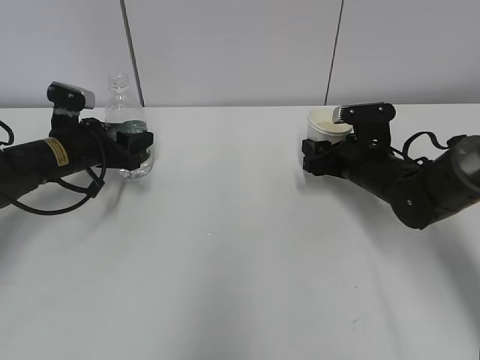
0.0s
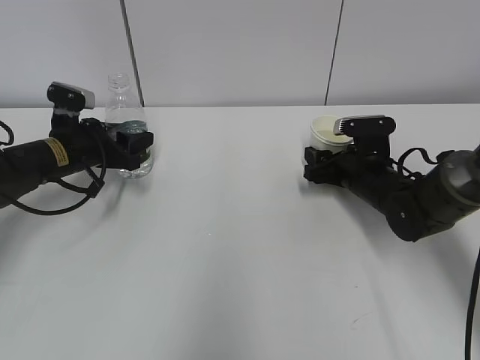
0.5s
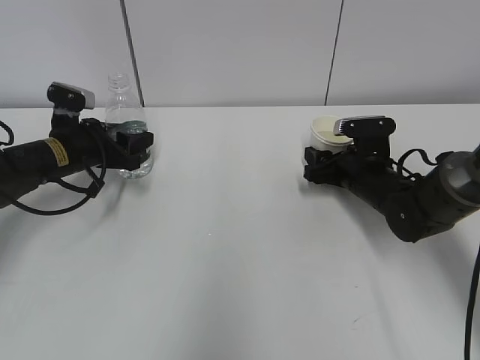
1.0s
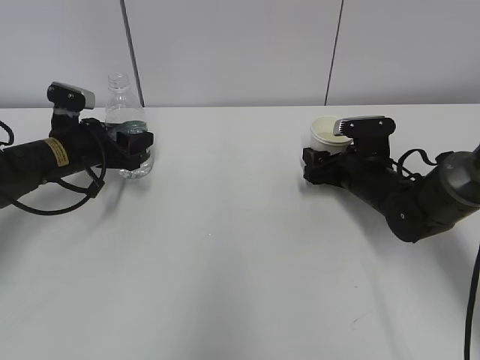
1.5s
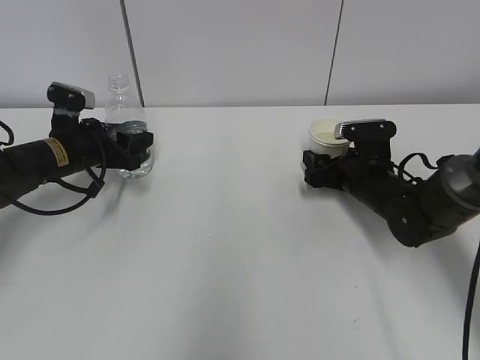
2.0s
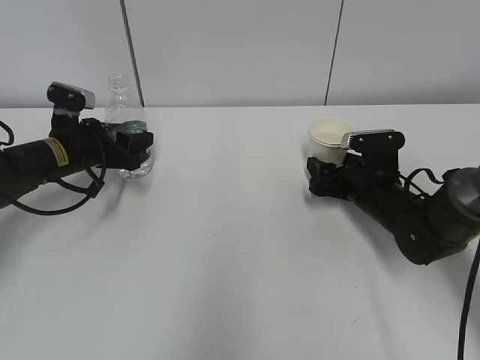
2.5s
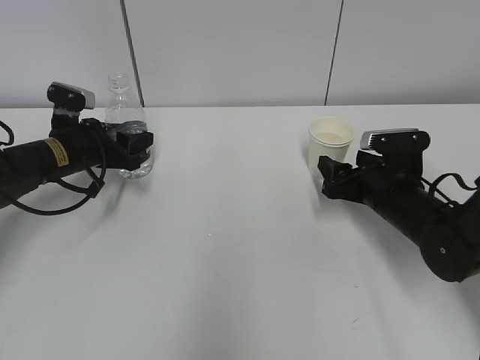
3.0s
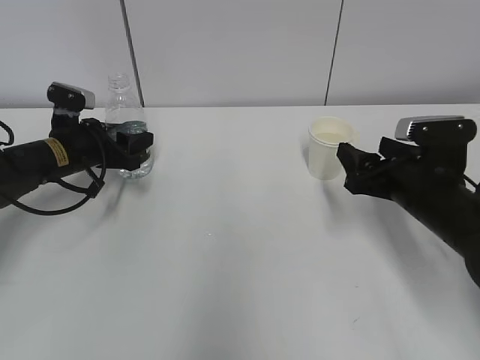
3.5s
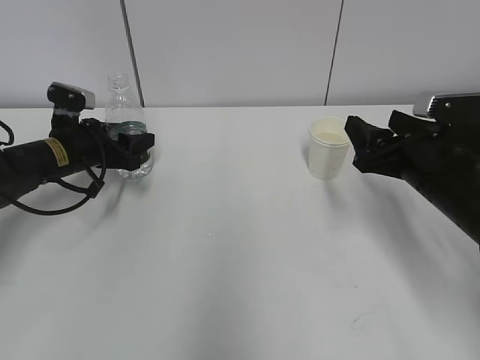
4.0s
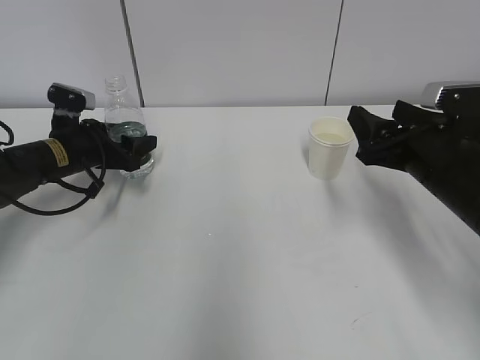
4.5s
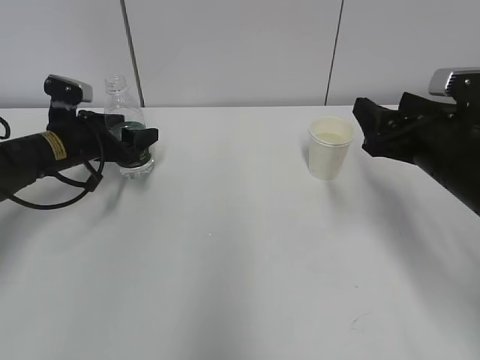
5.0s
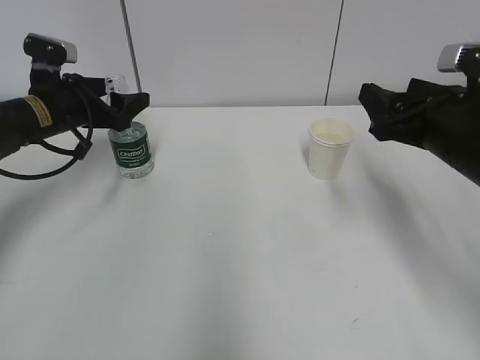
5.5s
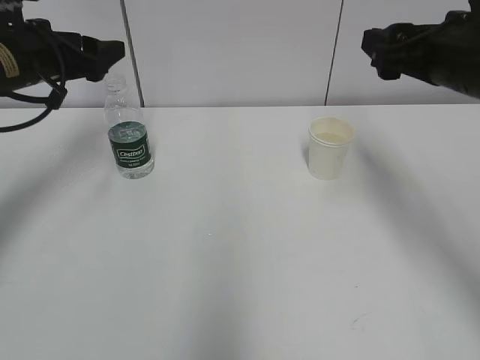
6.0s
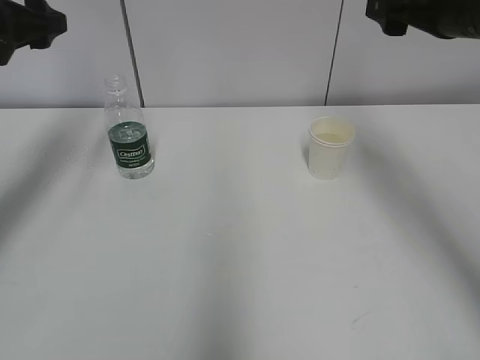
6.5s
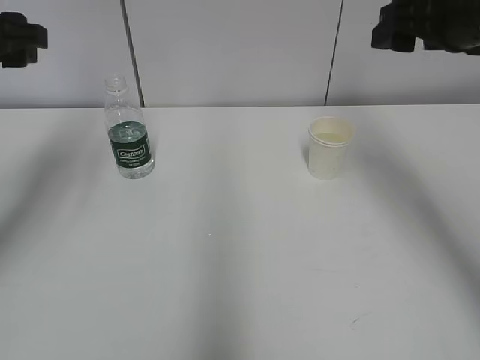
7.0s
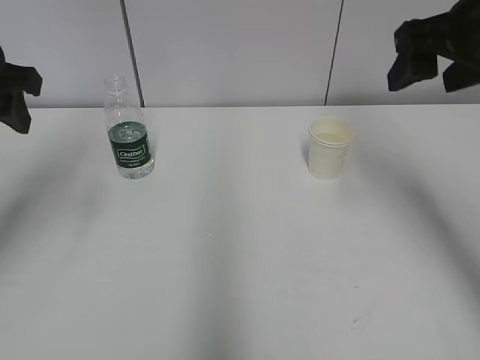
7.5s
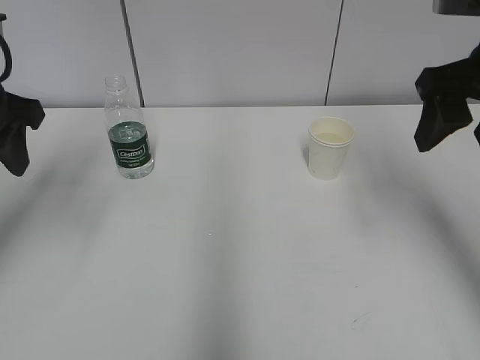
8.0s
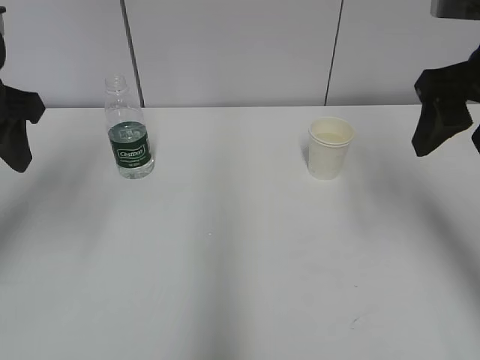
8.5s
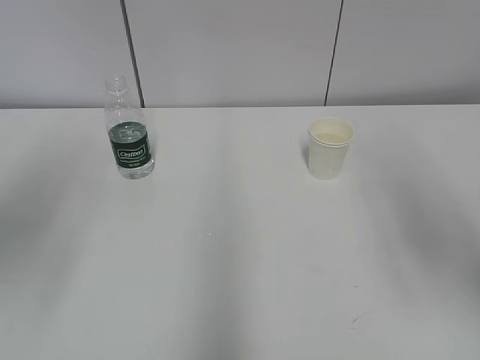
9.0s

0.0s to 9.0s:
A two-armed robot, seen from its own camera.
0.0s to 2.0s: The right gripper opens its fingers.
2.0s to 4.5s: The left gripper opens up. Meanwhile the right gripper travels upward and backward by approximately 15 cm.
4.5s to 7.0s: The left gripper heads upward and backward, covering roughly 25 cm, while the right gripper travels upward by approximately 15 cm.
7.0s to 9.0s: Both grippers move backward, some 15 cm.

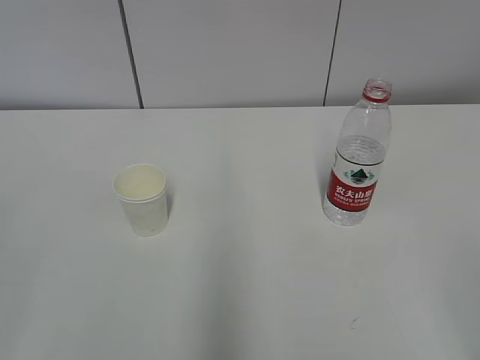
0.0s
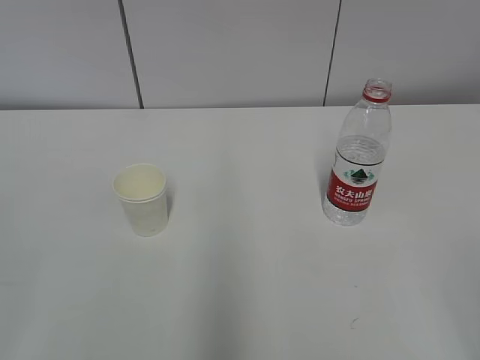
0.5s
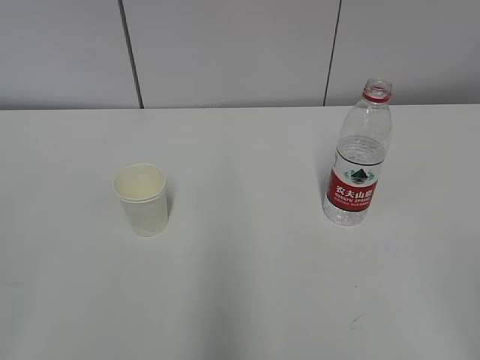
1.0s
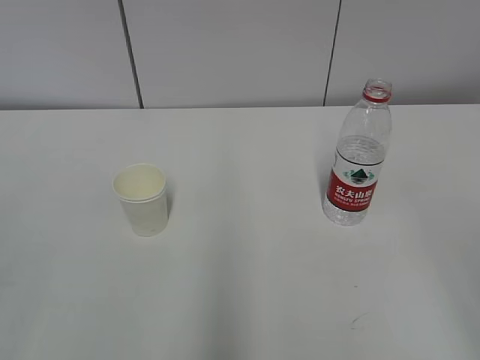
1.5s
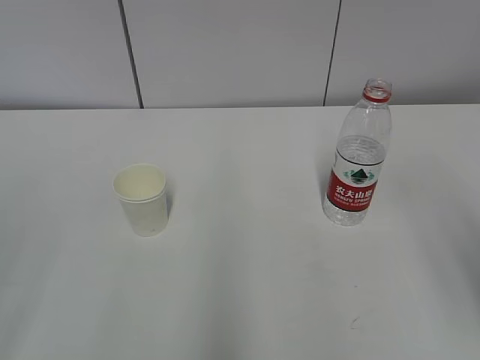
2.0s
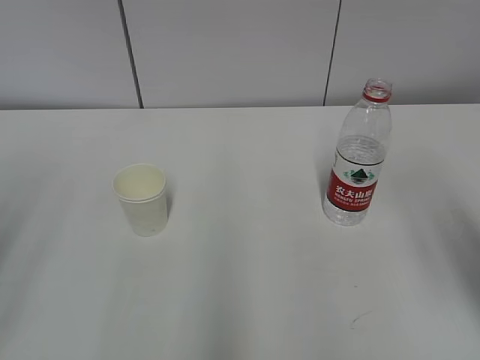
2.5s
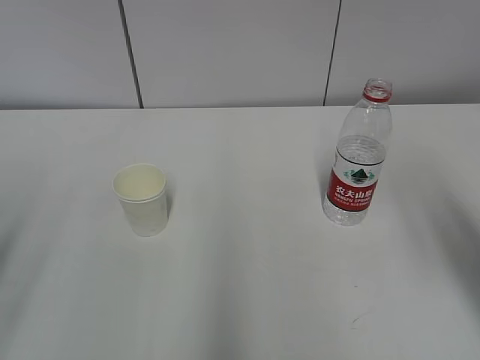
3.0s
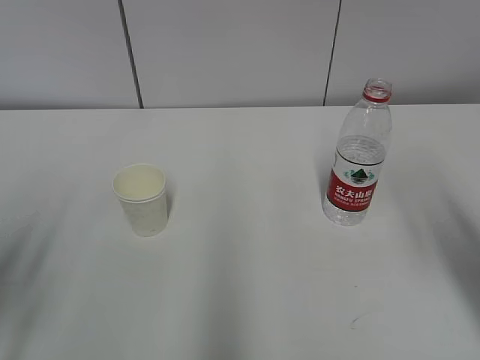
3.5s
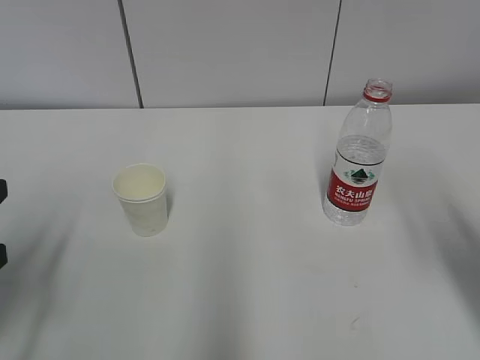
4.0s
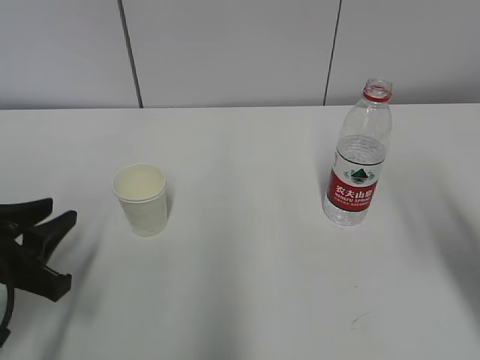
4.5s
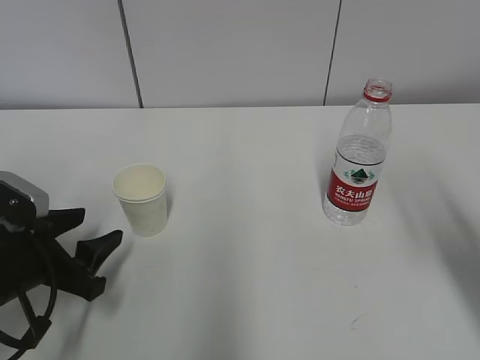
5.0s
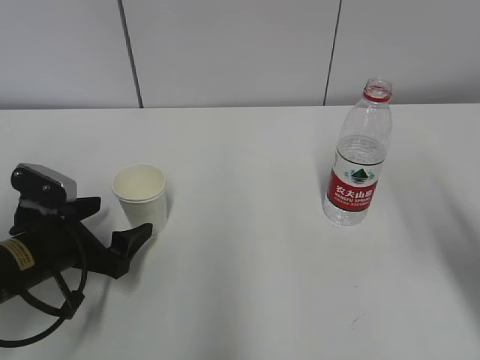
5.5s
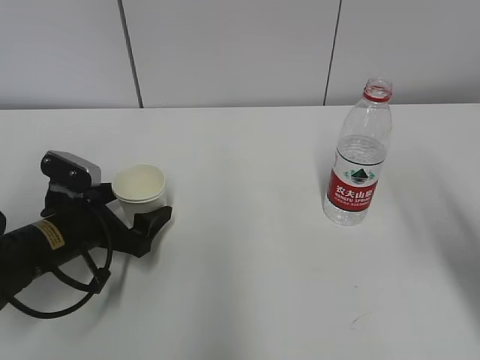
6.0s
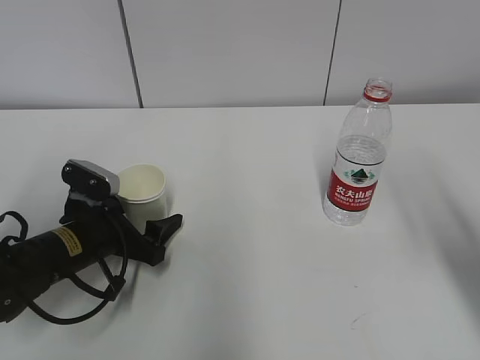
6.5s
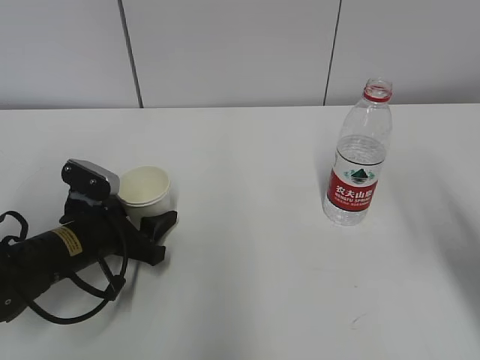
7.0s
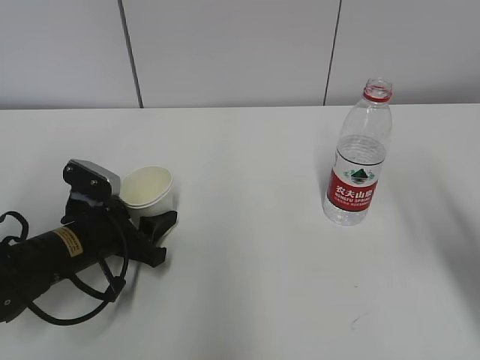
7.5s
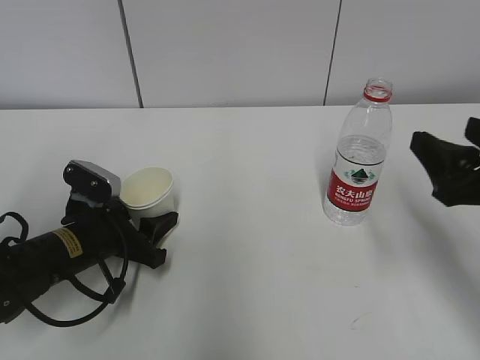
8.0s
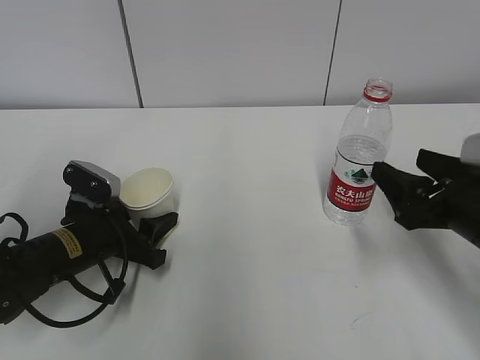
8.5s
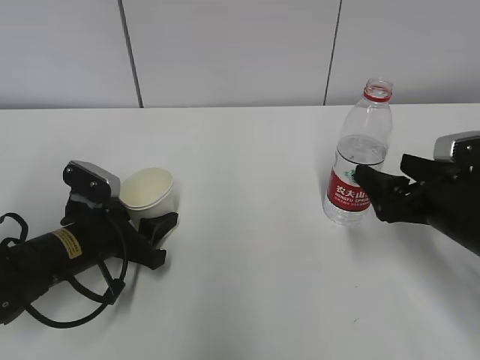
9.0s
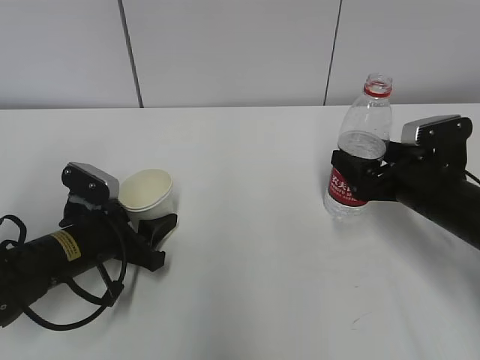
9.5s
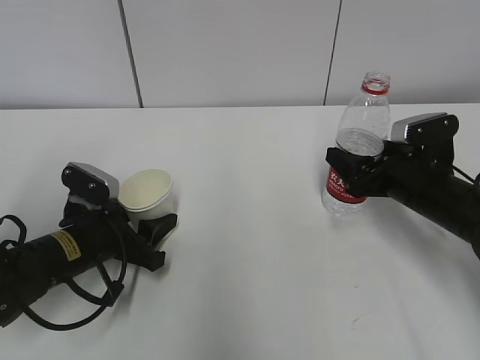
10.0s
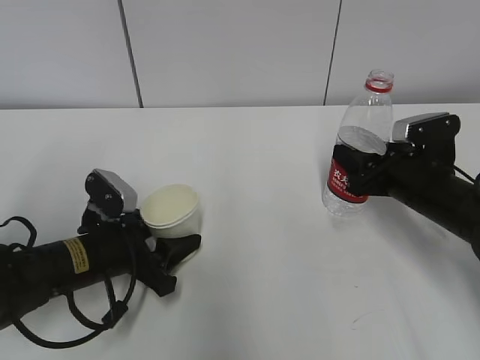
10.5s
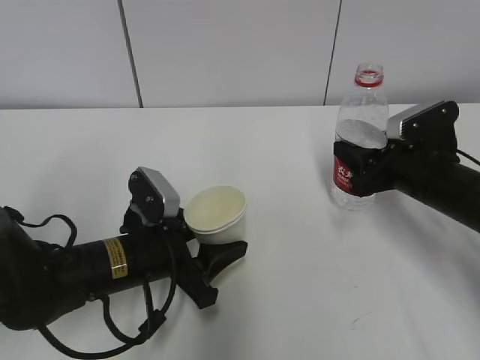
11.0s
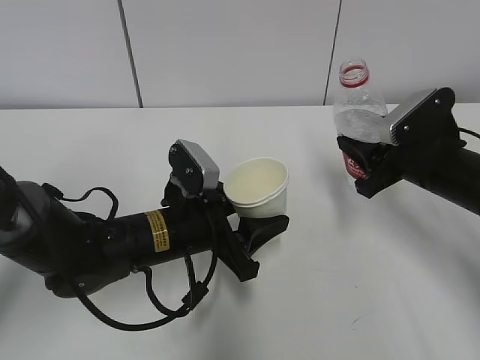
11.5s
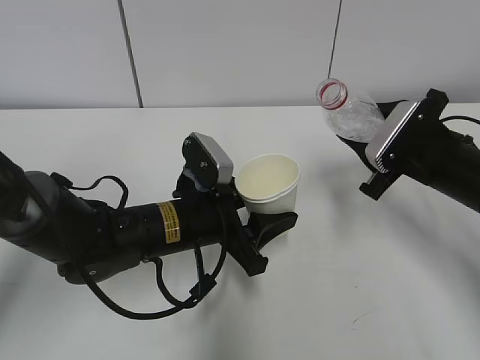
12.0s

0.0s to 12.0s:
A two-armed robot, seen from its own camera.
Step, 0.0s to 8.0s: Grab the paper cup with the left hand.
Step, 8.5s to 9.0s: Grab the water bottle with the right hand.
Step, 9.5s to 11.5s: Lift the paper cup with the left hand.
2.0s to 4.0s: The left gripper is displaced forward and downward by some 20 cm.
4.0s to 6.0s: The left gripper heads forward, downward and to the right, covering roughly 20 cm, and opens.
6.0s to 8.0s: The left gripper closes; the right gripper moves approximately 5 cm.
8.0s to 10.0s: The right gripper goes some 15 cm forward and downward.
10.0s to 12.0s: The right gripper closes its fingers, while the left gripper moves to the right, some 15 cm.

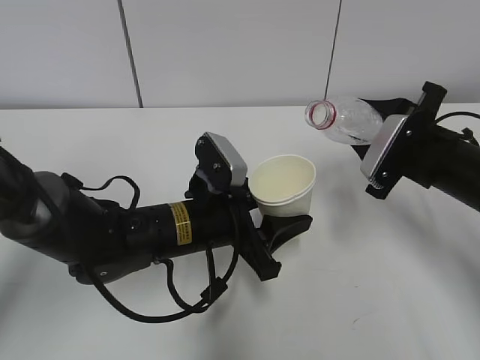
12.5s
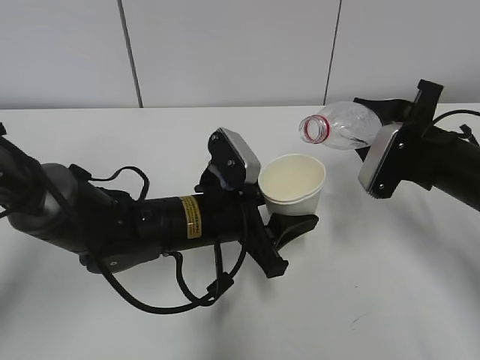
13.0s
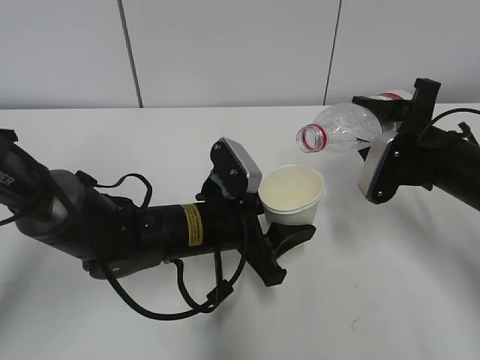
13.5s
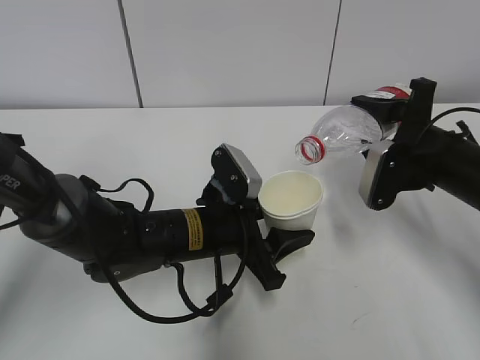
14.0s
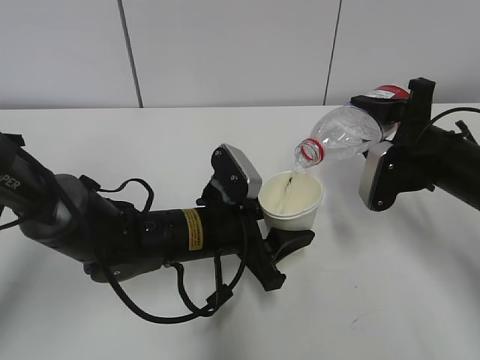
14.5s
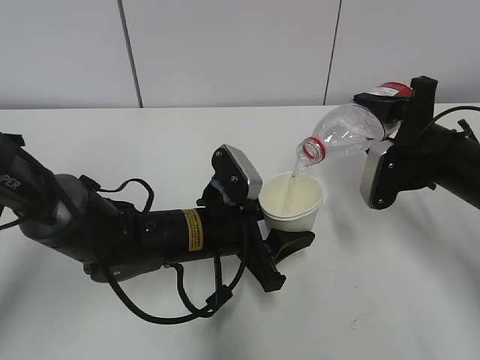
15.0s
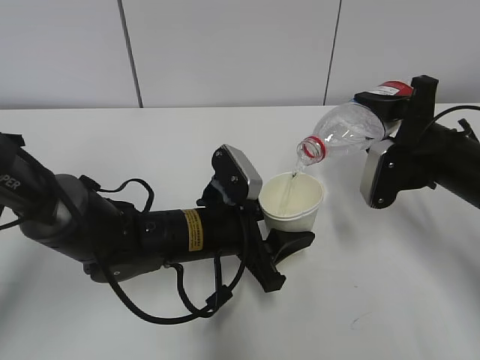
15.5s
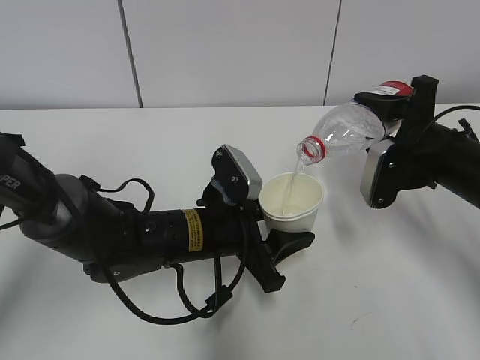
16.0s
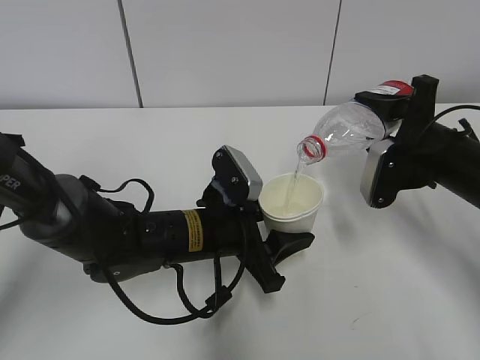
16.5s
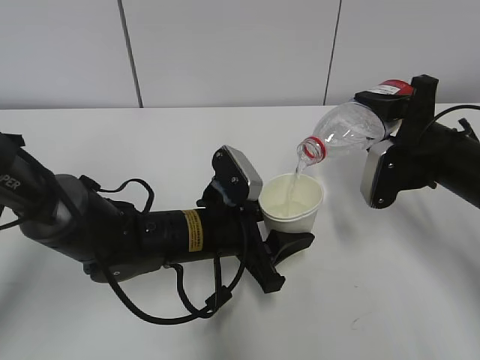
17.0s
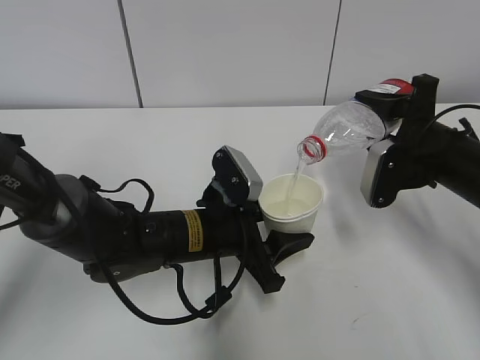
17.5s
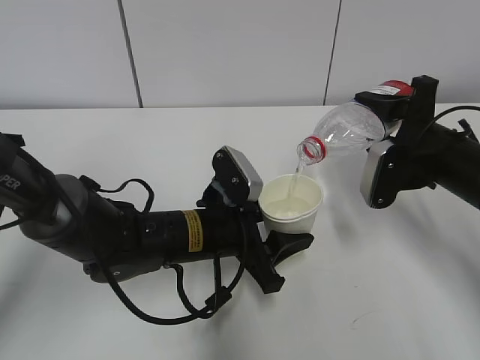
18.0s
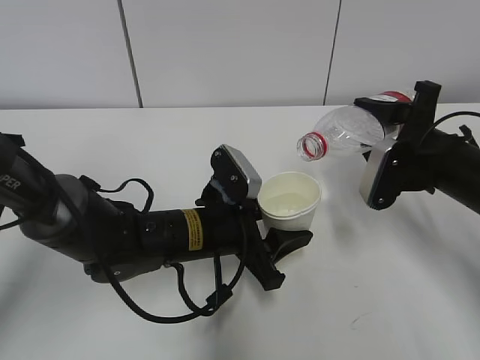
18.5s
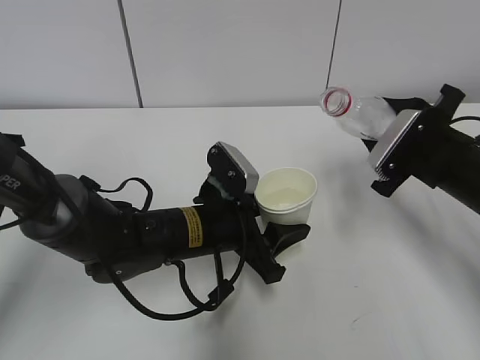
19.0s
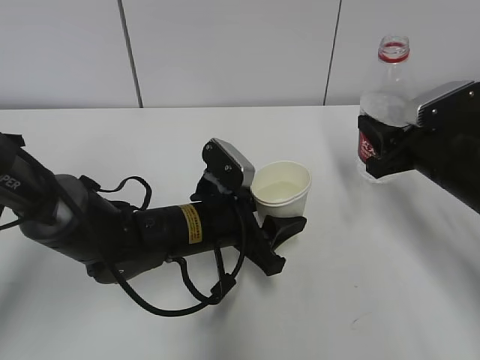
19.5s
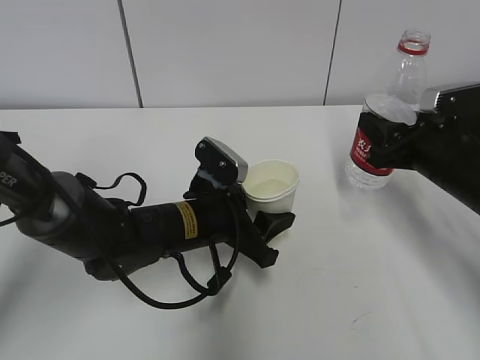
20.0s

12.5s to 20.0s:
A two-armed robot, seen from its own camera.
Step, 12.5s to 15.0s: Fill water with the left hand.
Step, 17.0s to 19.0s: Place the paper cup with the left hand.
14.5s to 18.0s: The two grippers keep their place.
